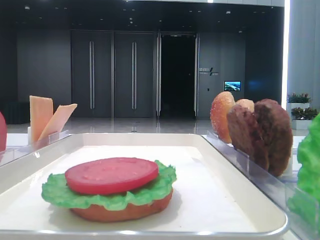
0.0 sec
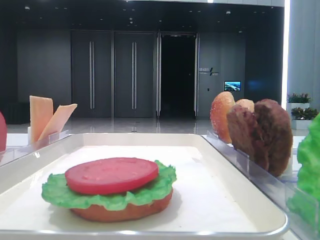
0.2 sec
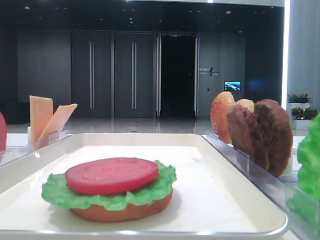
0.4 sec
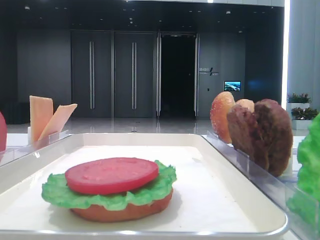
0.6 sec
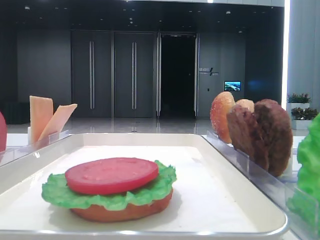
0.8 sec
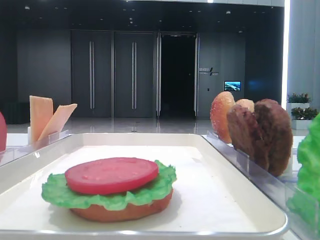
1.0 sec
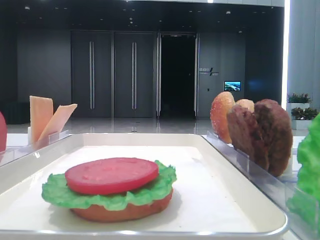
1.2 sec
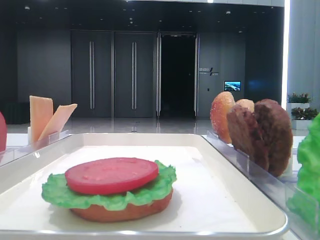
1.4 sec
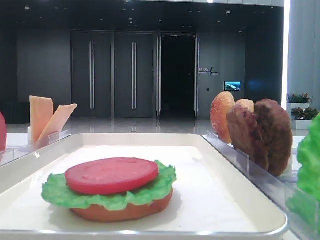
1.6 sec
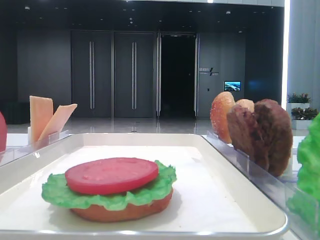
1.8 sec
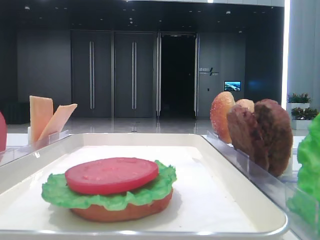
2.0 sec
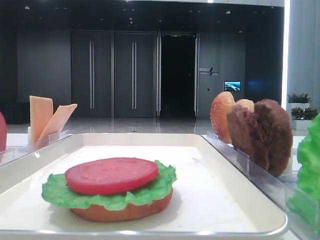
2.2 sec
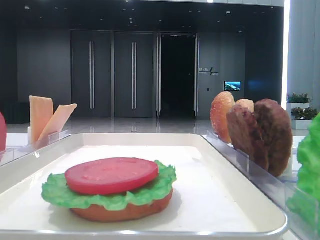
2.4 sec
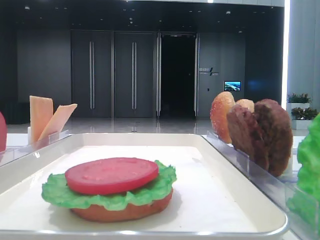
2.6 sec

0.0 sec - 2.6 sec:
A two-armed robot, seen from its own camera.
1.2 sec - 2.6 sec: Both grippers stay put.

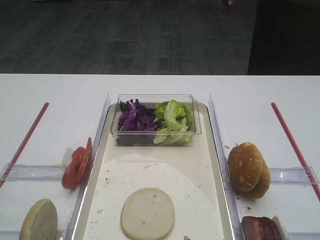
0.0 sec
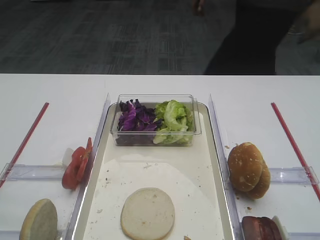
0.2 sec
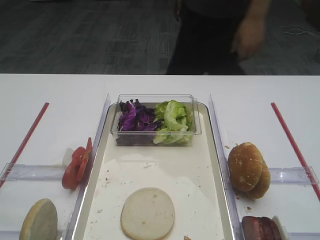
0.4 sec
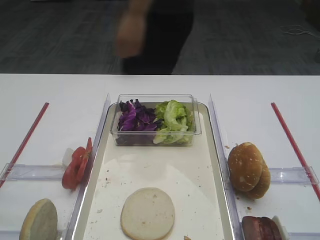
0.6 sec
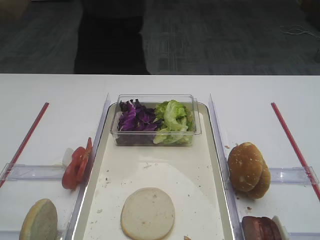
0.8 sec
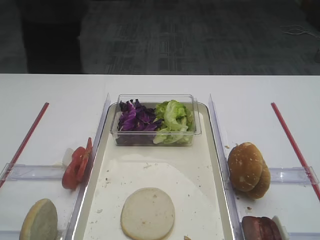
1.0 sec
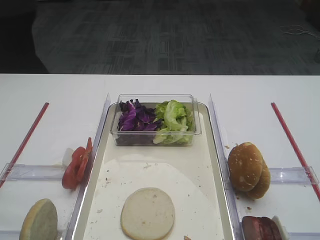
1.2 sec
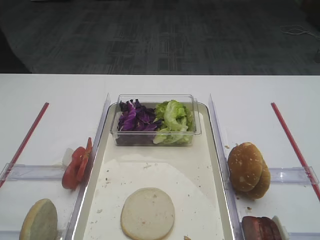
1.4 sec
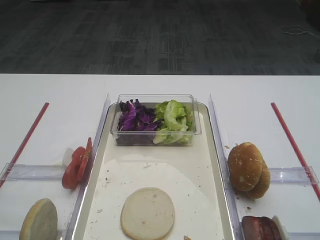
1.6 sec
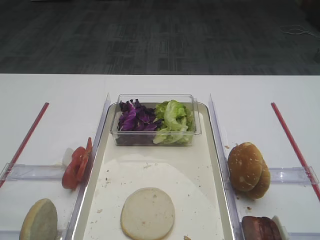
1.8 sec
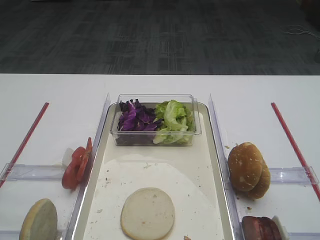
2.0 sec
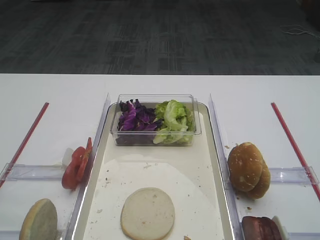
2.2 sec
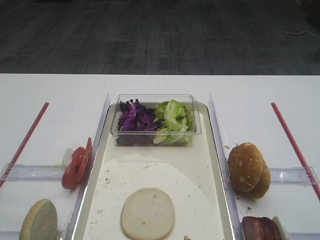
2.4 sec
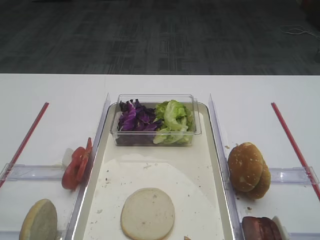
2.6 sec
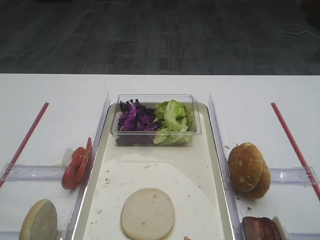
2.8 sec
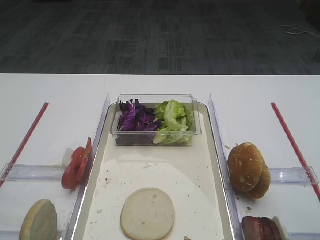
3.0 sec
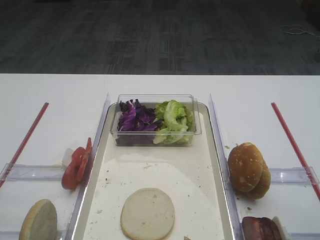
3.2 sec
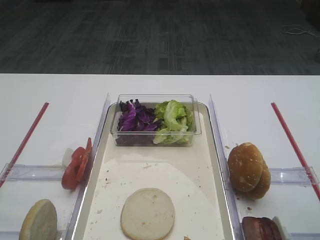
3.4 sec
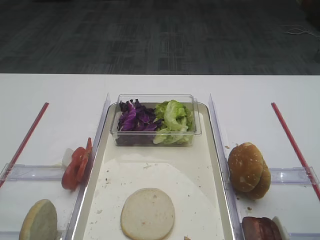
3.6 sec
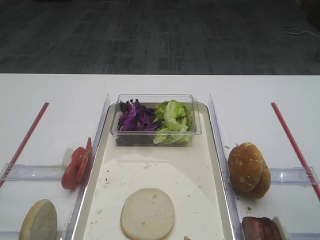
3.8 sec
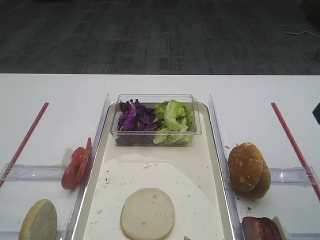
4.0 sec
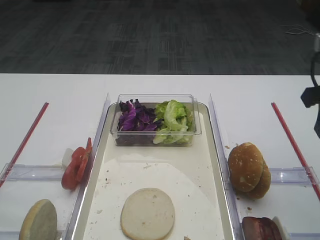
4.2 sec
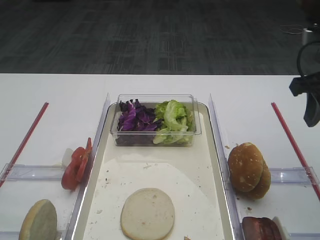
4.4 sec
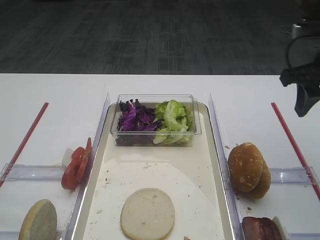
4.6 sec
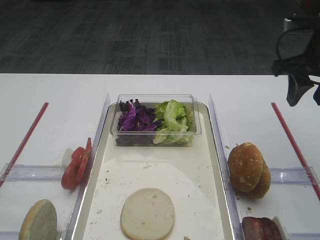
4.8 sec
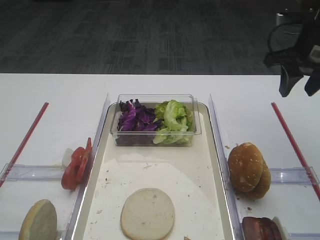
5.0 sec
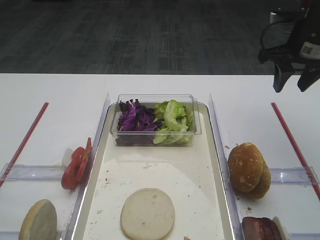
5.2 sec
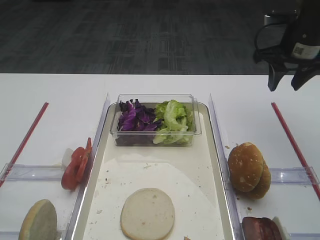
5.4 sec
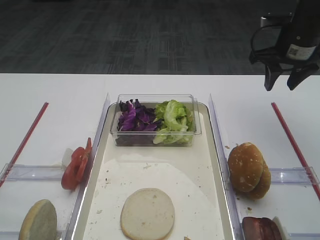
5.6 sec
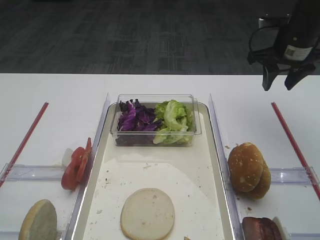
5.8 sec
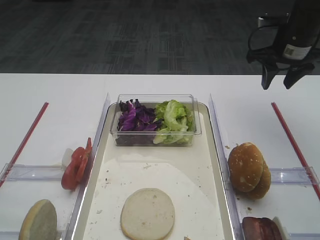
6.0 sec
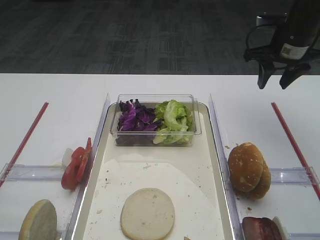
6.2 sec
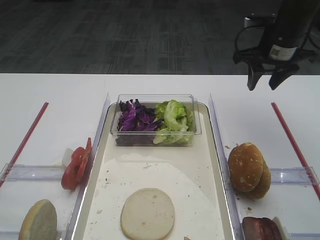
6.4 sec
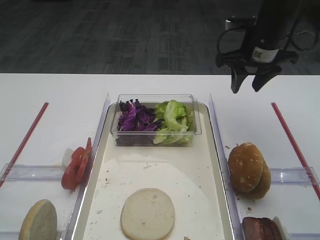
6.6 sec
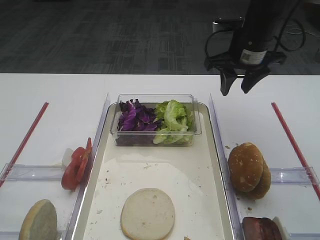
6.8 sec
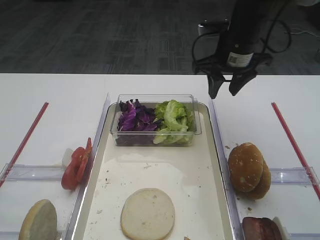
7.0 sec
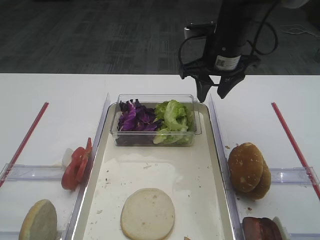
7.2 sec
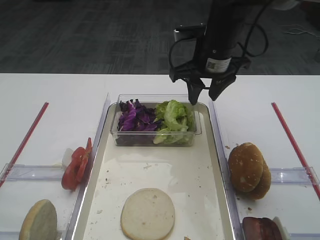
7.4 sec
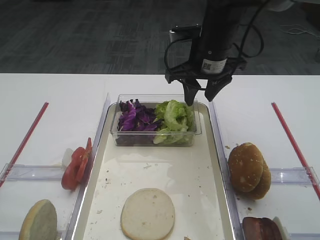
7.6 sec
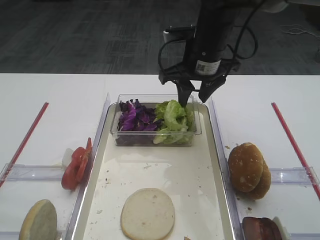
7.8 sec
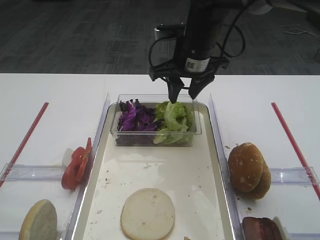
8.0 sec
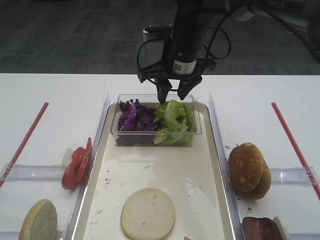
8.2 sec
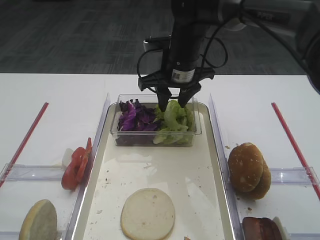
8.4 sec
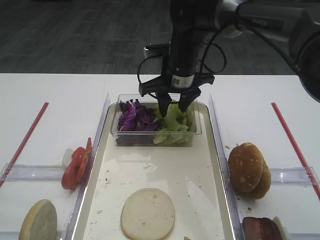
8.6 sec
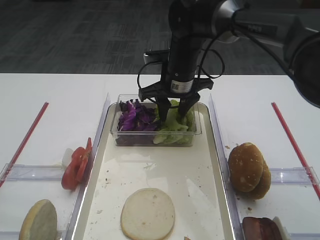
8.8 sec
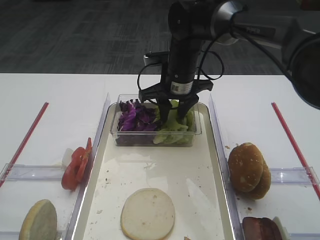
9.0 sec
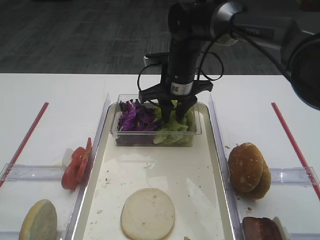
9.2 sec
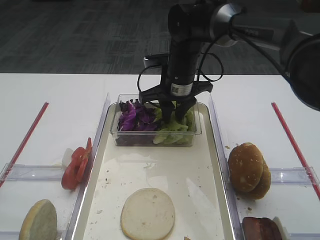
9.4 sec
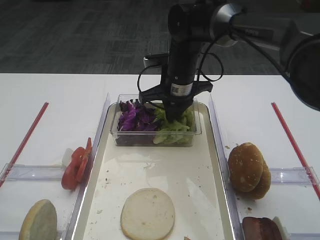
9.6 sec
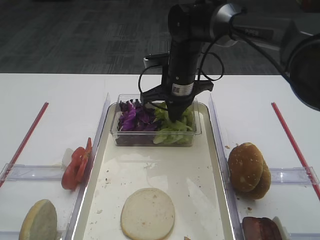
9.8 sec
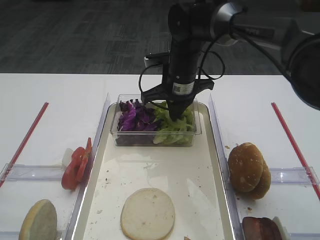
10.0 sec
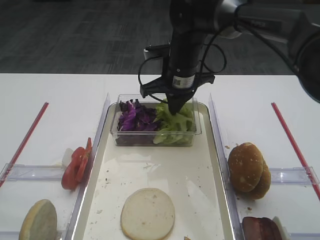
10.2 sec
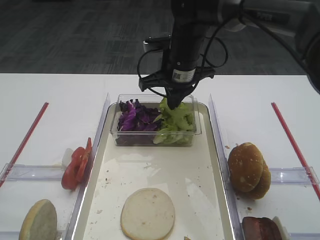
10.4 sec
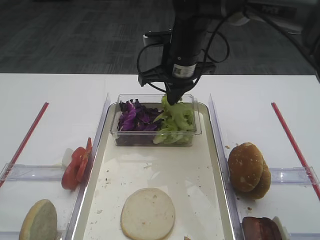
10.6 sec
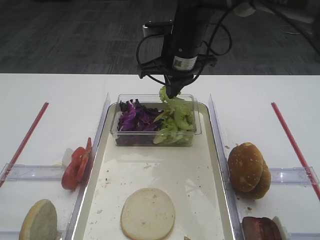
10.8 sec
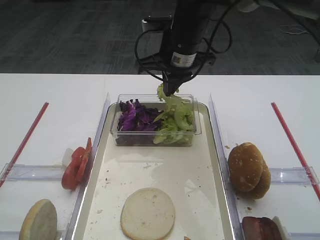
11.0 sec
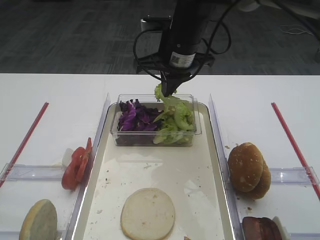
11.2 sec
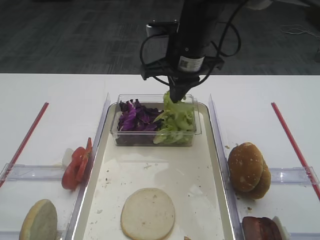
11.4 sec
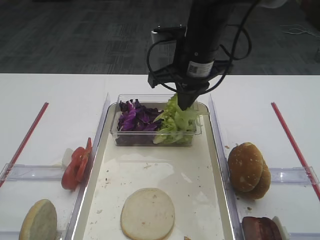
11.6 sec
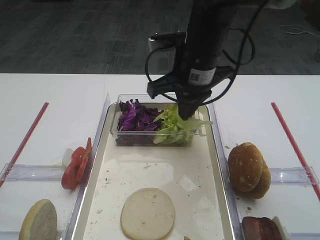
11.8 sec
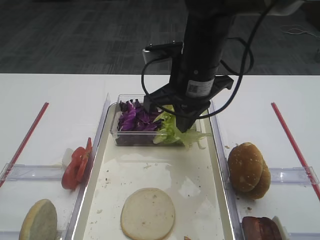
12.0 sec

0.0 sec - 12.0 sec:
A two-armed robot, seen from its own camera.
Step, 0.0 sec - 10.6 sec: Pick up the lettuce leaf with the right gripper.
3.0 sec - 4.4 sec: The right gripper goes roughly 15 cm forward.
4.4 sec - 6.0 sec: The right gripper is displaced forward by approximately 15 cm.
6.0 sec - 7.6 sec: The right gripper shifts approximately 15 cm to the left.
7.6 sec - 9.0 sec: The right gripper goes some 10 cm downward and to the left.
9.0 sec - 10.4 sec: The right gripper closes up.
10.4 sec - 12.0 sec: The right gripper moves backward, roughly 10 cm.

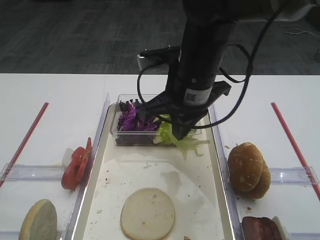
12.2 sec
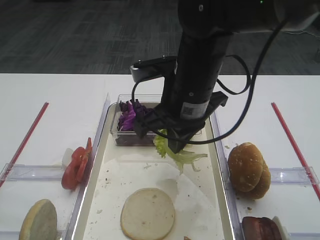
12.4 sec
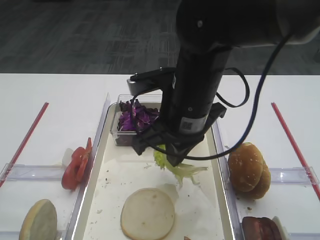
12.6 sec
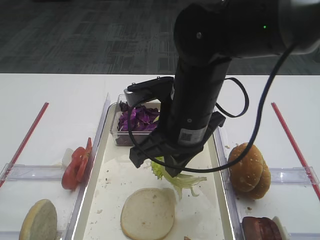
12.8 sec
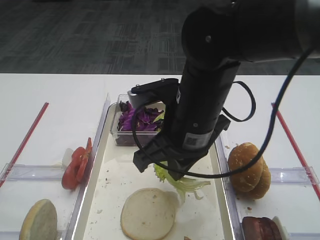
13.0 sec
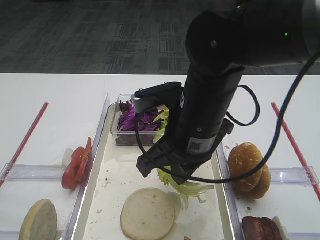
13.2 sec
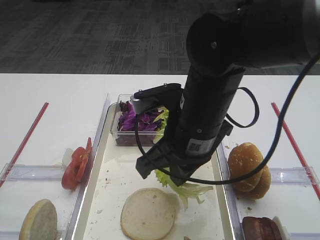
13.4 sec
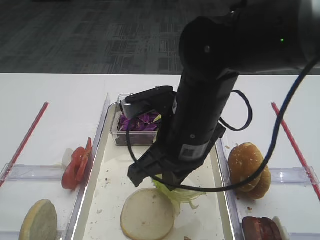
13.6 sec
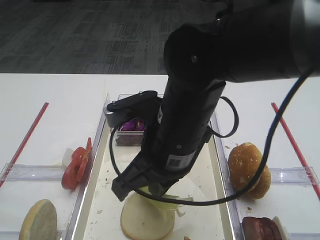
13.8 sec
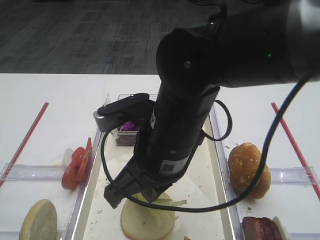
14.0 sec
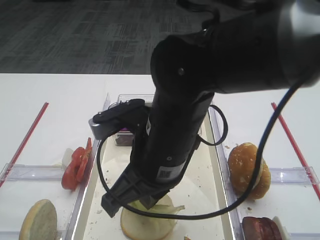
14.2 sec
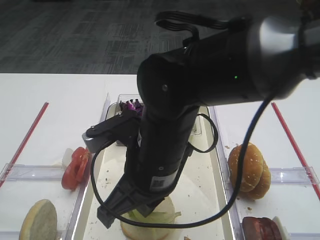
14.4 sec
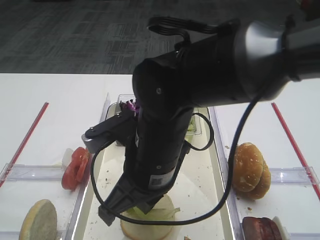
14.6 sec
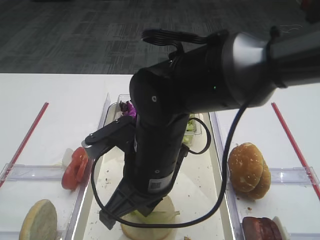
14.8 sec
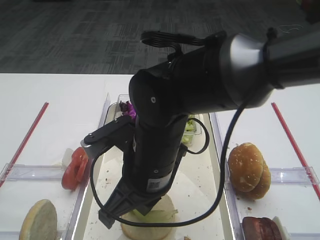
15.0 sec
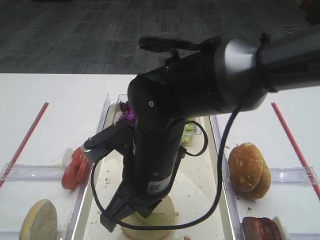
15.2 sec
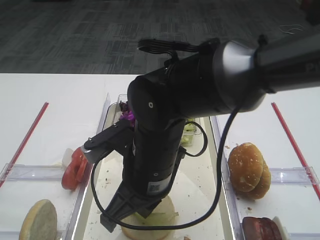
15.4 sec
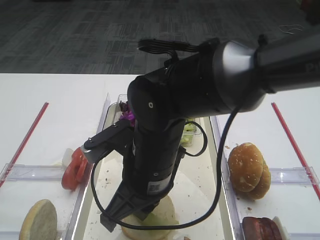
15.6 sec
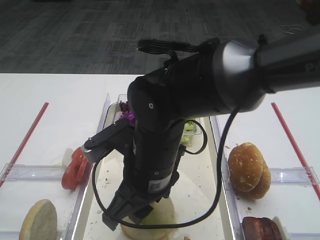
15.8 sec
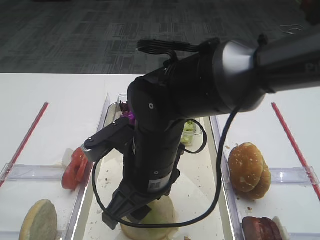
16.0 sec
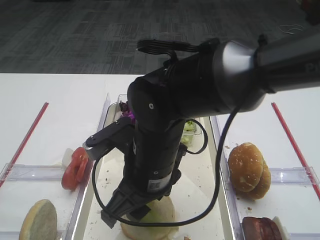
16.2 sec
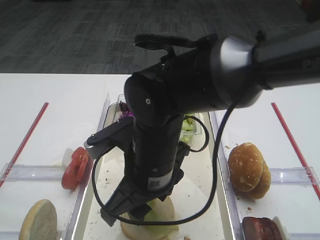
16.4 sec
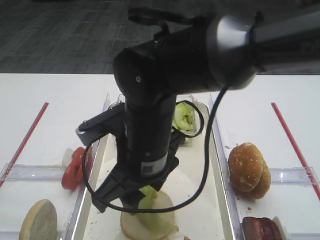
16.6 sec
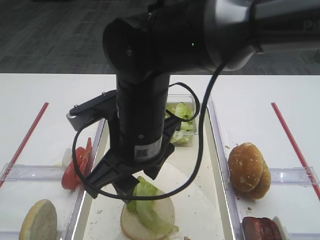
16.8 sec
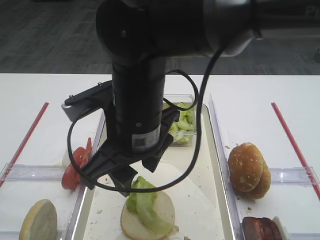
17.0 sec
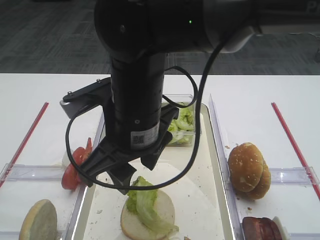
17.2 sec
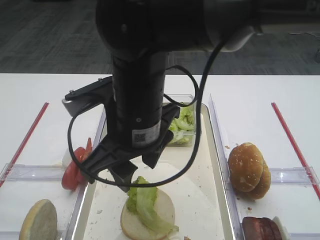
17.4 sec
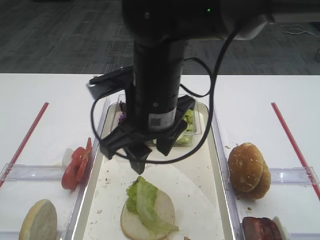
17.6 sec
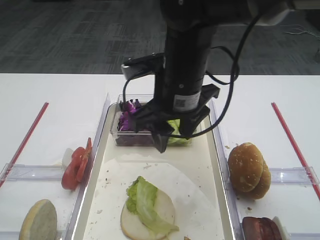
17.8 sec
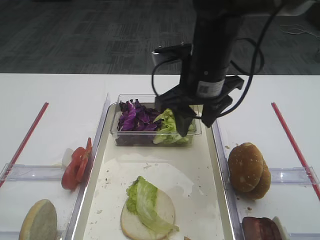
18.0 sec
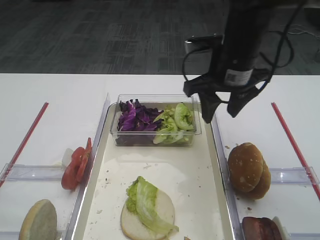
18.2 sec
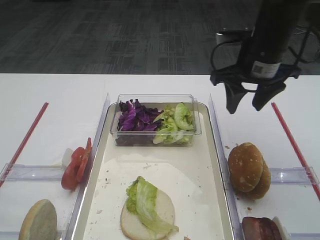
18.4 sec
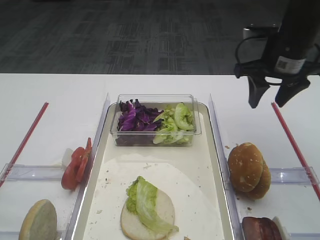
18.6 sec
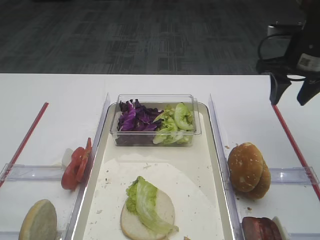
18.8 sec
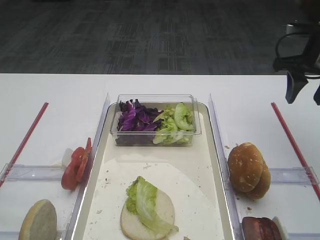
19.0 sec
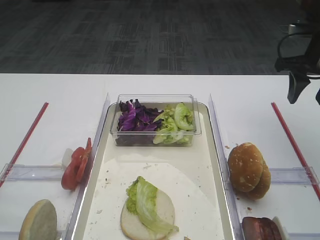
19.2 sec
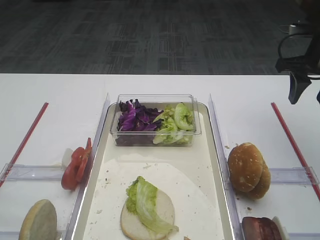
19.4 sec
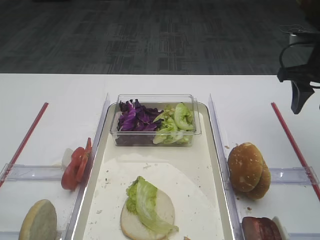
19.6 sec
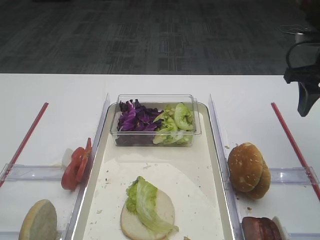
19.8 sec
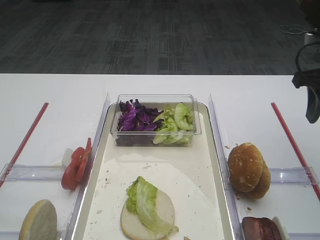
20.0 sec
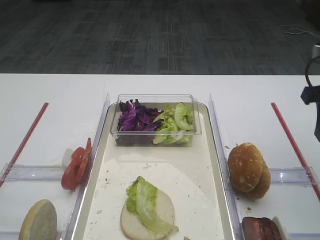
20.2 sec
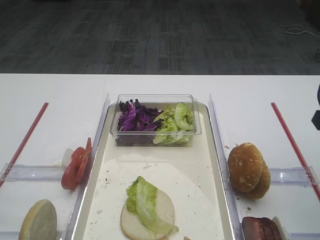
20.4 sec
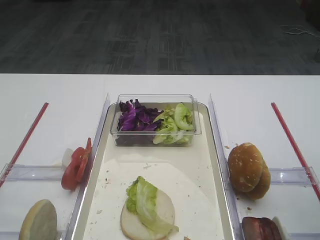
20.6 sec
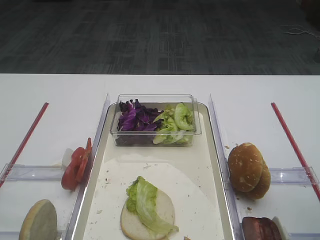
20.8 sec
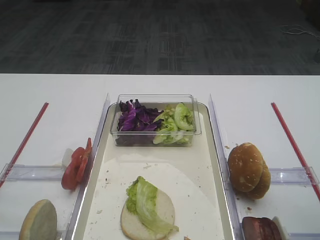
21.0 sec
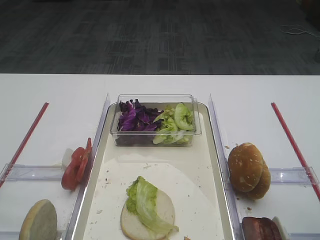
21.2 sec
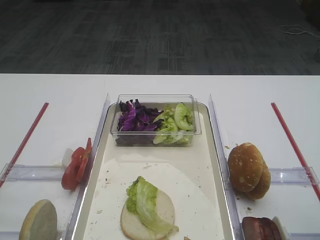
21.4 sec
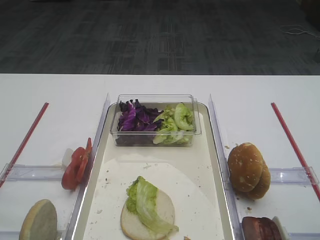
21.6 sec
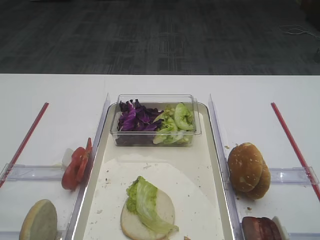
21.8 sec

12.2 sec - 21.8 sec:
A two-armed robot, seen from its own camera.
Step, 12.2 sec - 16.6 sec: Place the lettuce leaf on the bread slice with the right gripper.
12.2 sec - 13.8 sec: The right gripper moves backward, some 10 cm.
13.8 sec - 15.4 sec: The right gripper ends up some 5 cm from where it was.
15.4 sec - 17.0 sec: The right gripper heads upward, covering some 5 cm, and opens up.
17.0 sec - 18.6 sec: The right gripper is displaced to the right and forward by roughly 30 cm.
18.6 sec - 20.2 sec: The right gripper is displaced backward and to the right by some 10 cm.
20.2 sec - 21.8 sec: The right gripper shifts approximately 20 cm backward.
